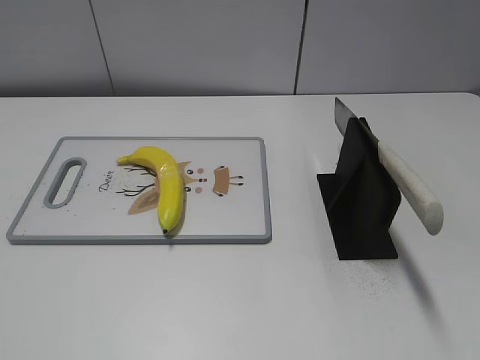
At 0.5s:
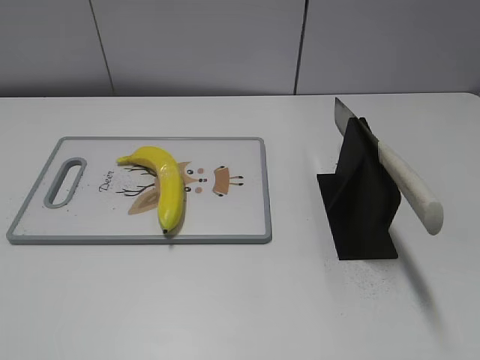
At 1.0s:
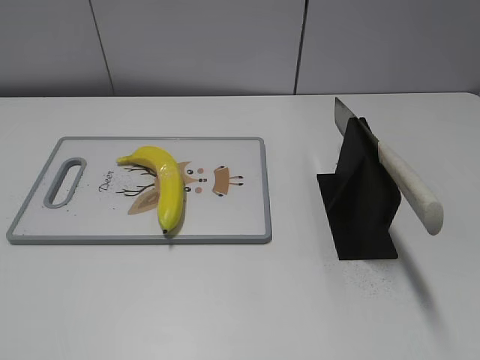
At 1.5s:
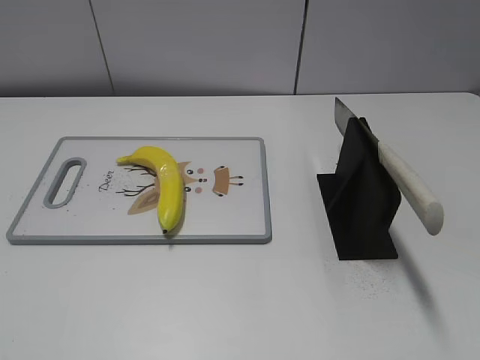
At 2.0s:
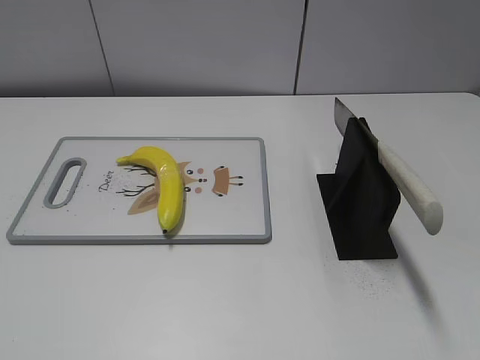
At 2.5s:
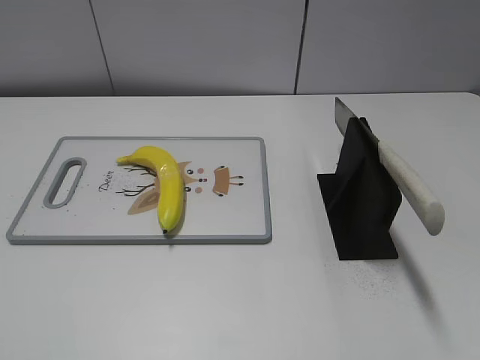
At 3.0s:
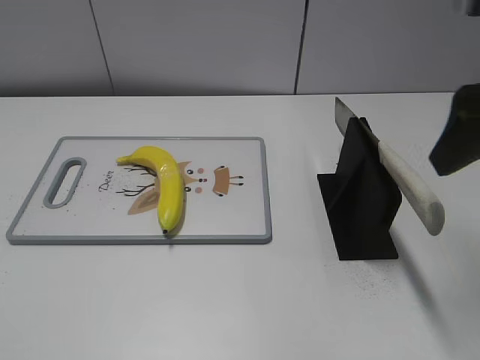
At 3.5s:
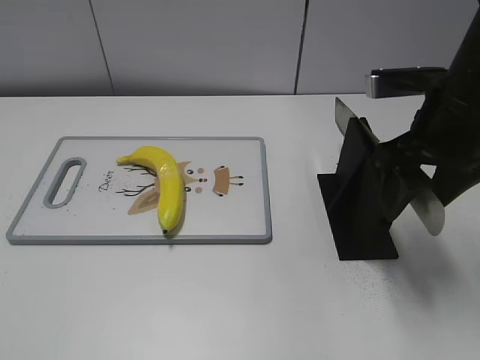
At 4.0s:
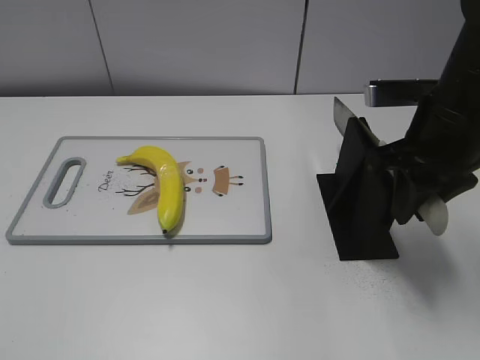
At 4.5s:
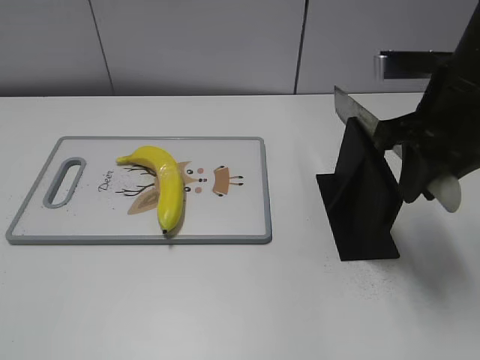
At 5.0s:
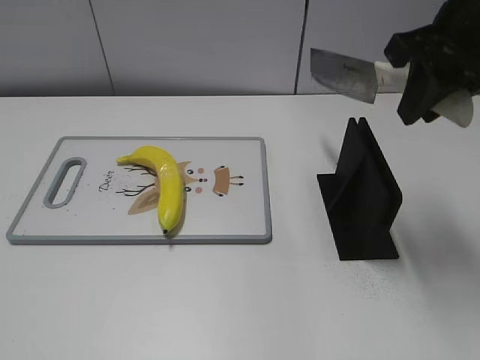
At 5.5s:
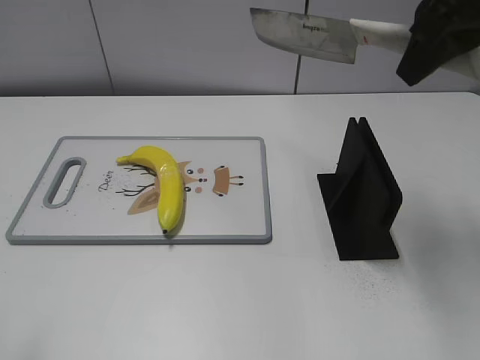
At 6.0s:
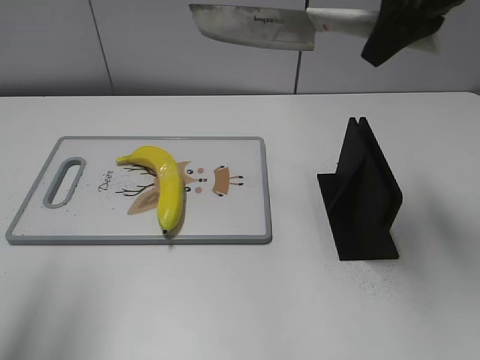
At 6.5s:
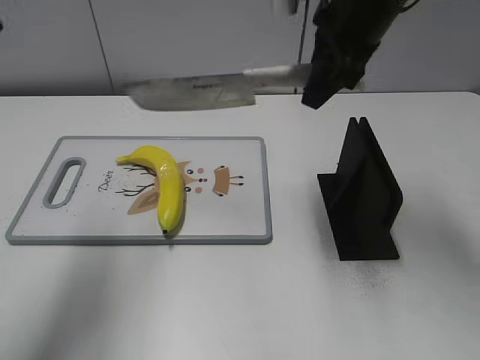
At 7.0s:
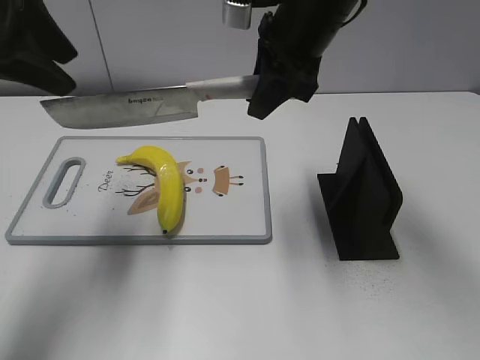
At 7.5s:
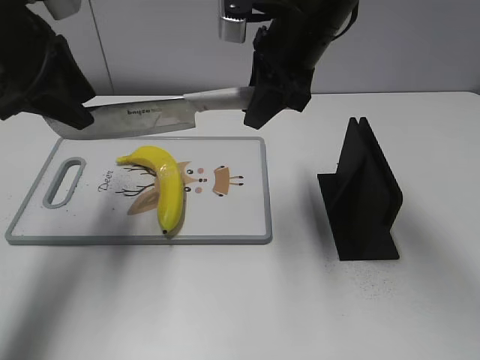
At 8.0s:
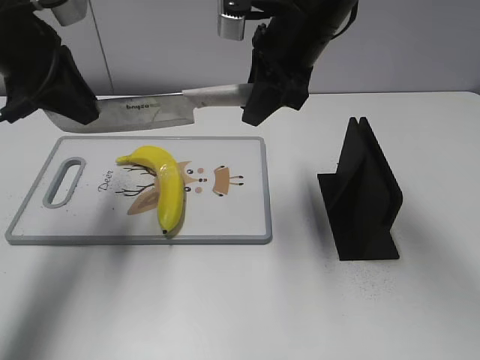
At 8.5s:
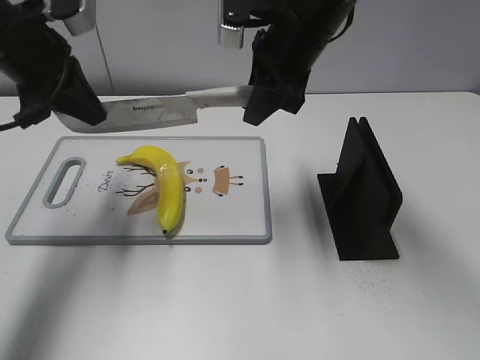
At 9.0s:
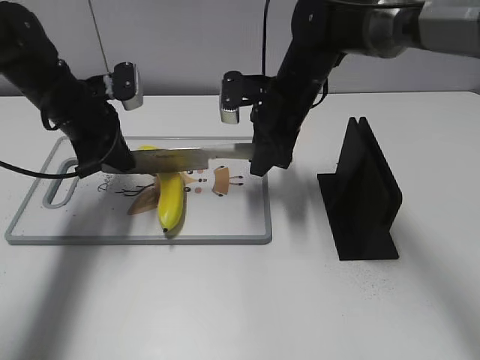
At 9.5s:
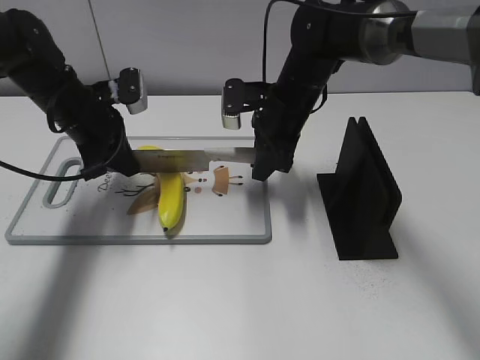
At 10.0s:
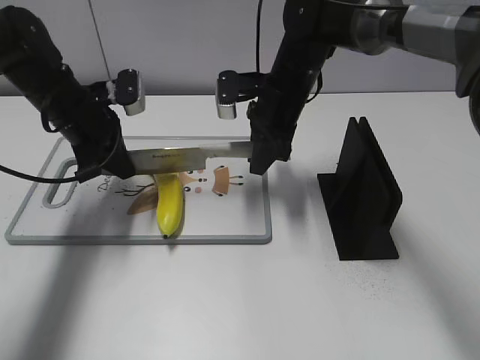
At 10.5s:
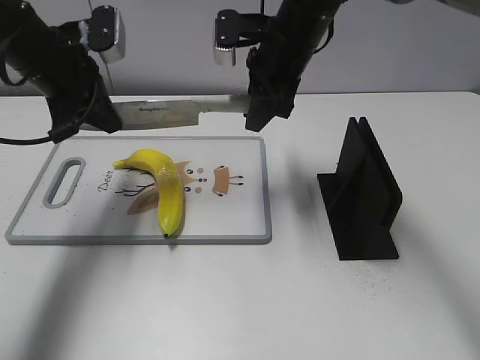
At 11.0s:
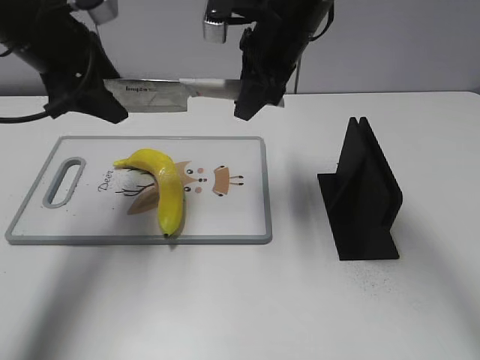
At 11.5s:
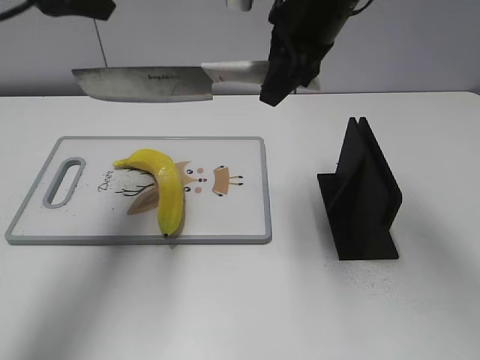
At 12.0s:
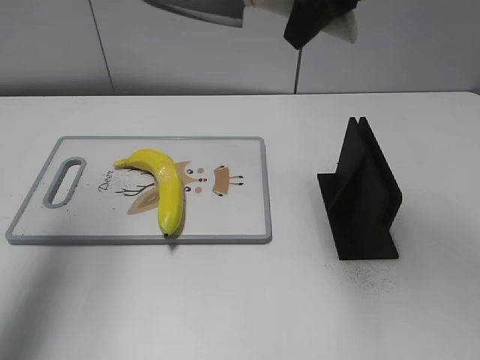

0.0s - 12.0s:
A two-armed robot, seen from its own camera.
Task of the whole recording: cut plastic banana.
Step, 0.0s - 4.5s: Grab the knife handle with your right hand.
Step, 5.0s - 10.0s: Hold the blade with your left hand.
2.0s - 4.0s: The right gripper goes some 30 cm forward, and closes its fingers.
4.0s - 6.0s: The right gripper heads upward, covering about 15 cm, while the left gripper is displaced forward and upward by roughly 20 cm.
6.0s - 8.0s: The right gripper goes about 15 cm to the left and downward; the left gripper moves forward and downward, some 20 cm, and closes.
8.0s - 10.0s: The grippers both shift downward by approximately 10 cm. The left gripper closes its fingers.
10.0s - 12.0s: The right gripper goes some 20 cm upward. The left gripper is displaced upward and backward by some 25 cm, and opens its fingers.

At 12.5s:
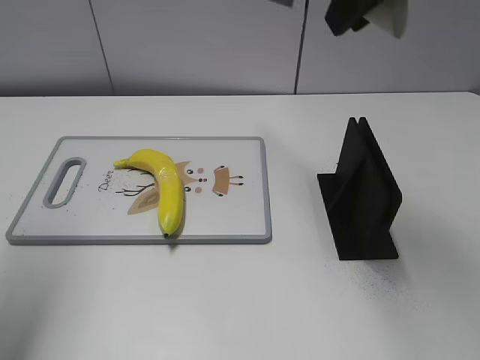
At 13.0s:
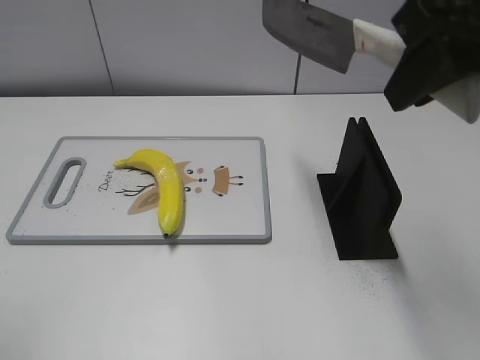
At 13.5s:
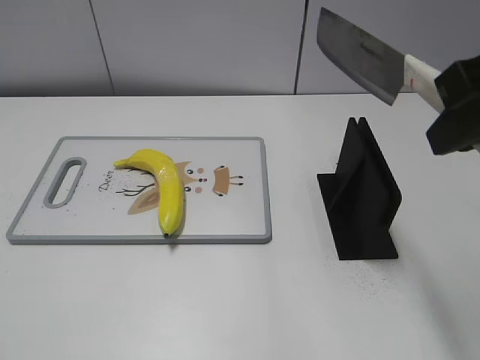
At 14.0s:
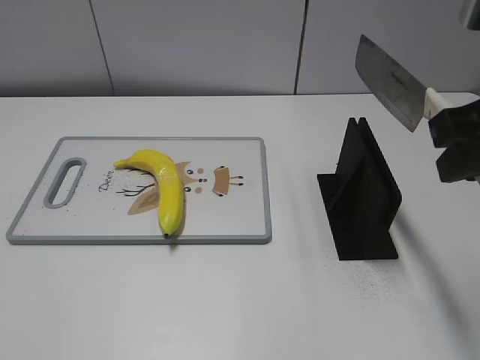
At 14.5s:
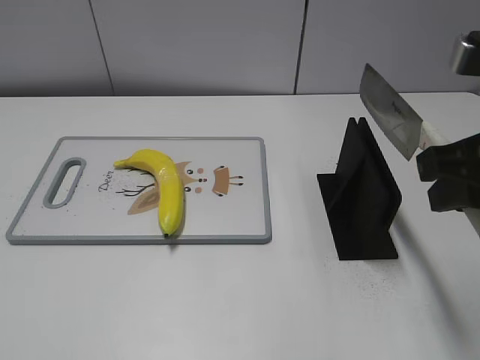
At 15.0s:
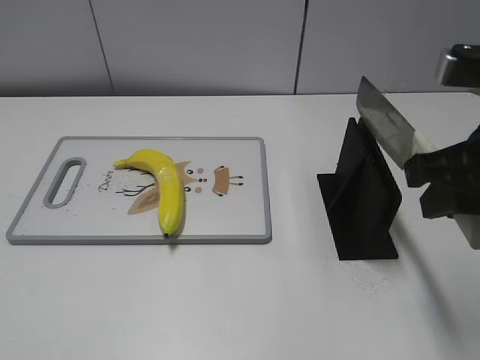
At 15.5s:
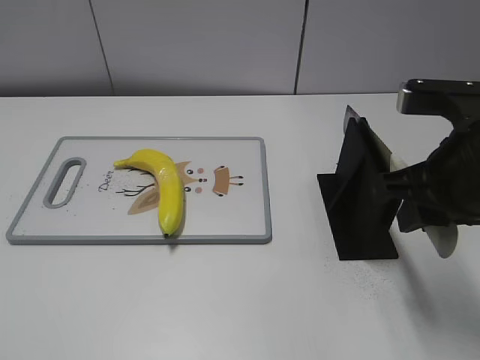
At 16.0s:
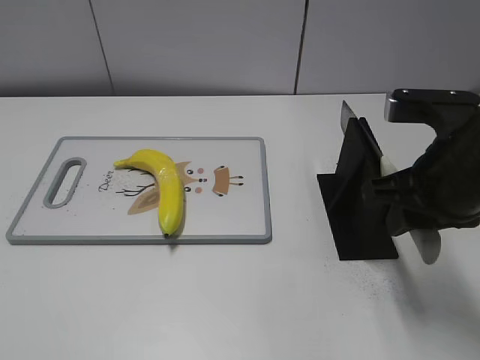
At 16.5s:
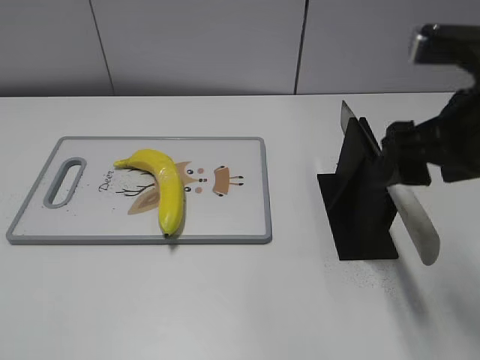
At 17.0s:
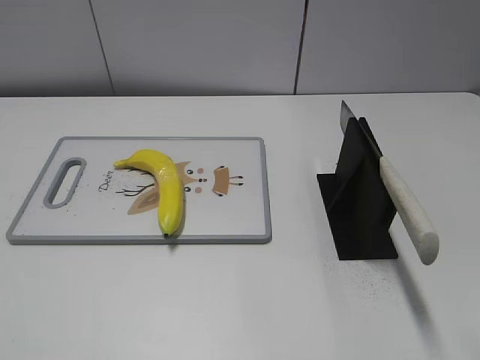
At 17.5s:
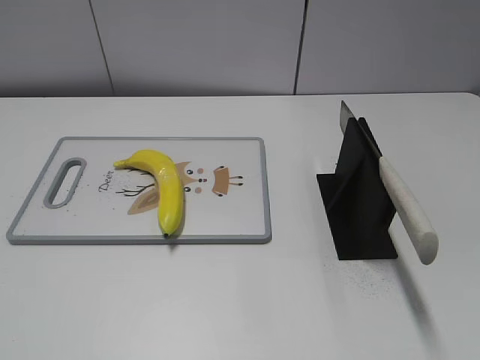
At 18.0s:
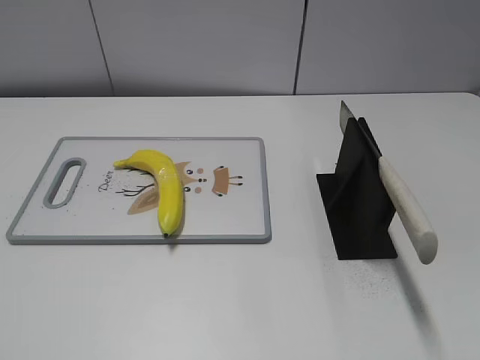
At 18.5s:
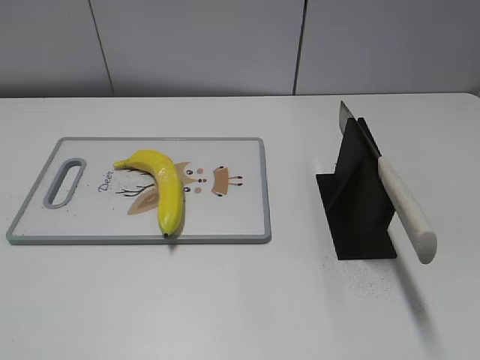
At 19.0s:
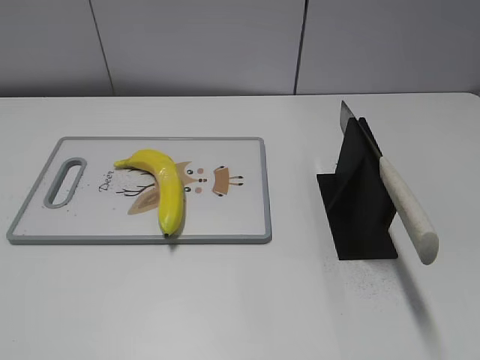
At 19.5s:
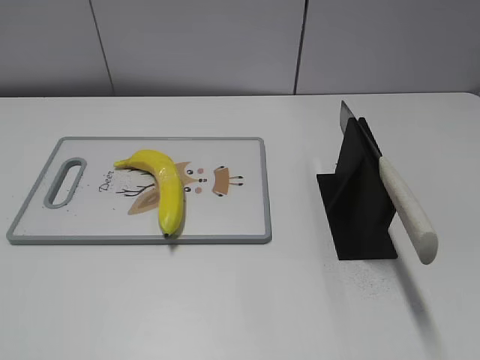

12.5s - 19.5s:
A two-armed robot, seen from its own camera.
Task of the whole recording: cut plastic banana.
Step, 12.5s - 13.0s: Secure the blade with your left hand.
Step, 13.5s - 19.5s: Place the knife on the storage rack with your right hand.
12.5s - 14.5s: The left gripper is displaced backward and downward by about 25 cm. Meanwhile the right gripper heads downward, backward and to the right, covering about 20 cm.
14.5s - 16.0s: The right gripper goes some 5 cm downward.
16.0s - 17.5s: The right gripper moves backward and to the right, roughly 20 cm, and opens its fingers.

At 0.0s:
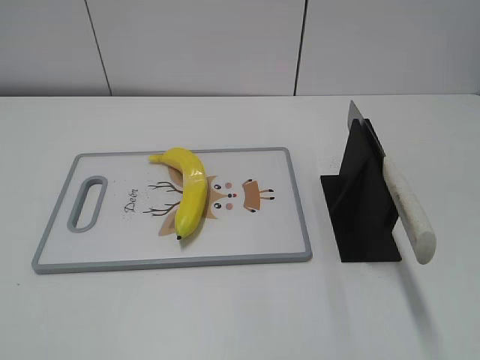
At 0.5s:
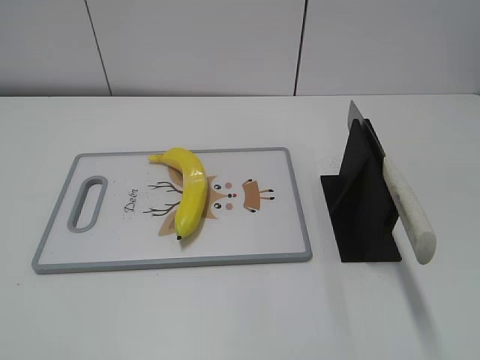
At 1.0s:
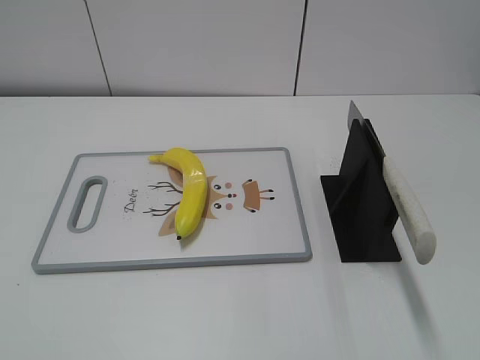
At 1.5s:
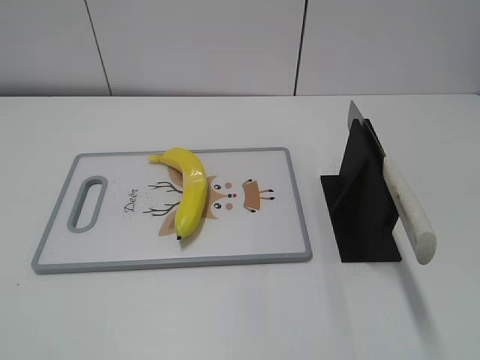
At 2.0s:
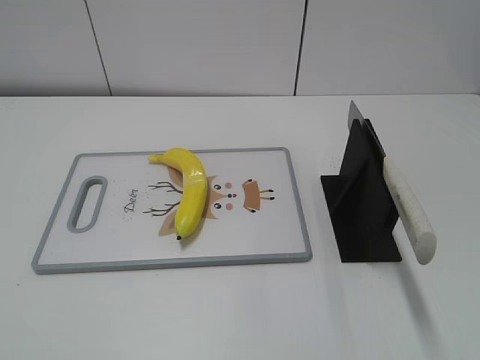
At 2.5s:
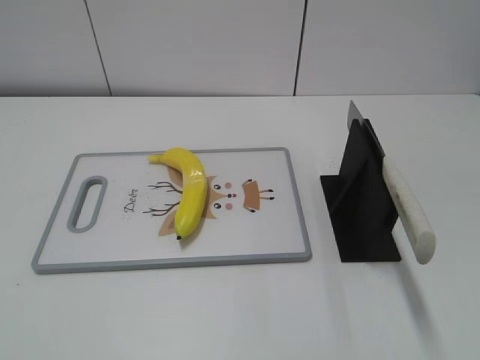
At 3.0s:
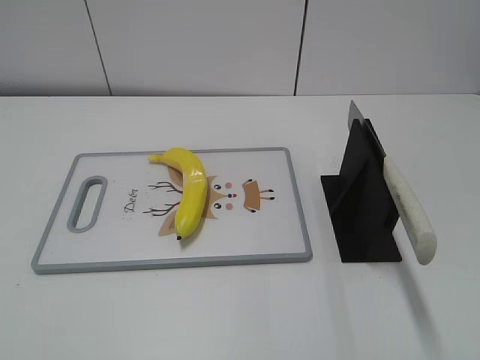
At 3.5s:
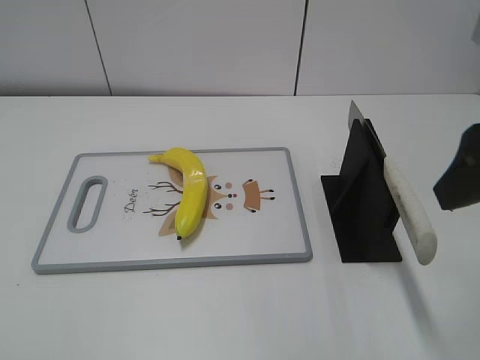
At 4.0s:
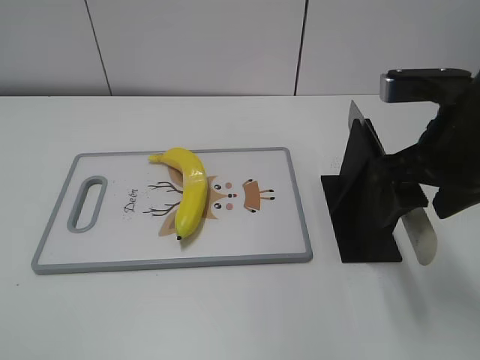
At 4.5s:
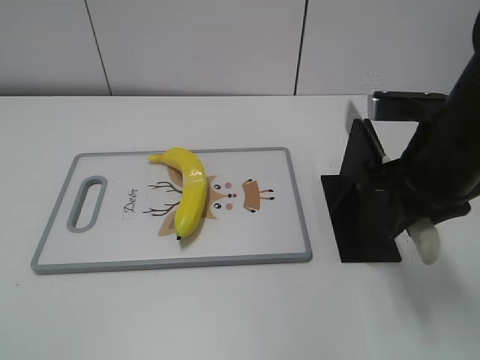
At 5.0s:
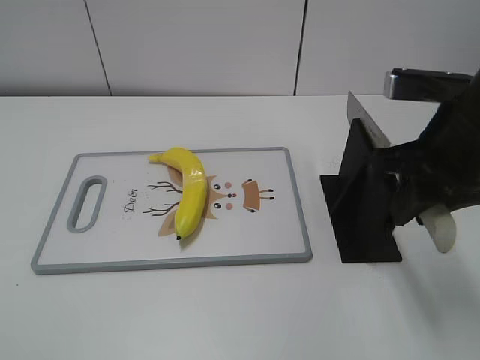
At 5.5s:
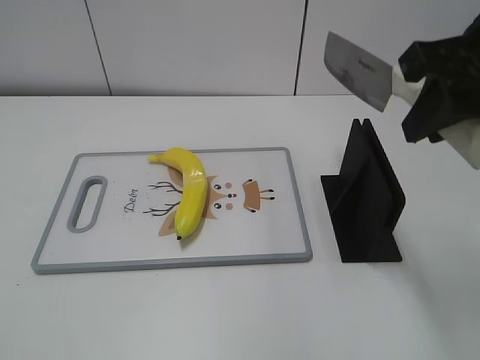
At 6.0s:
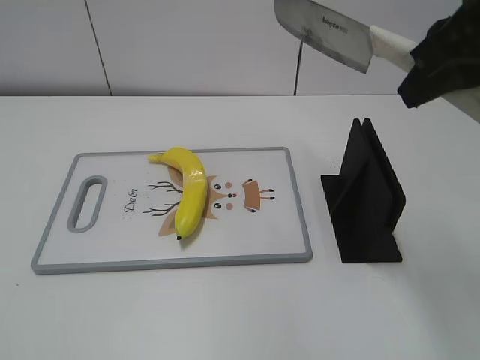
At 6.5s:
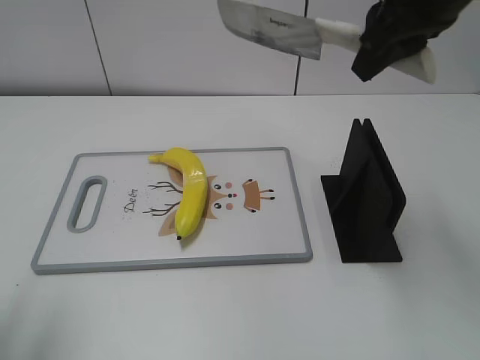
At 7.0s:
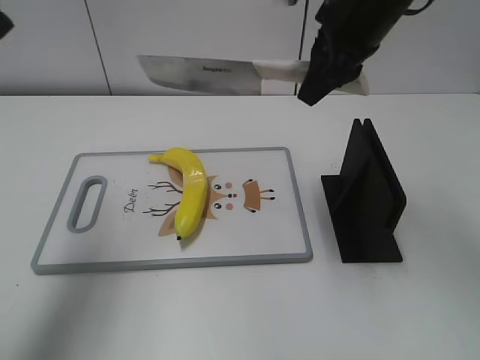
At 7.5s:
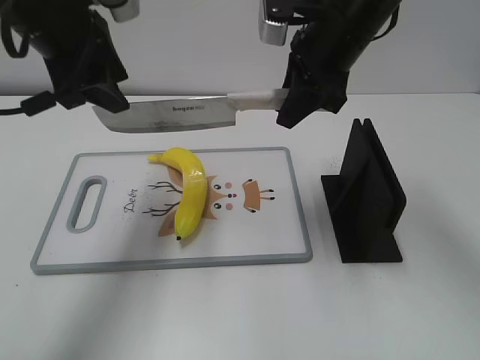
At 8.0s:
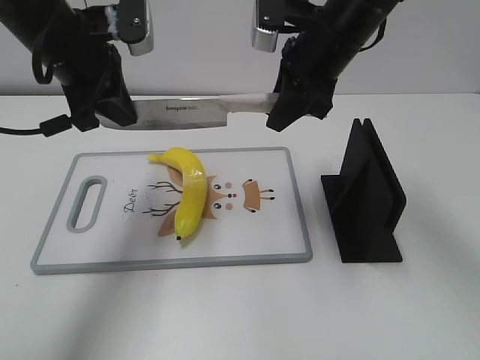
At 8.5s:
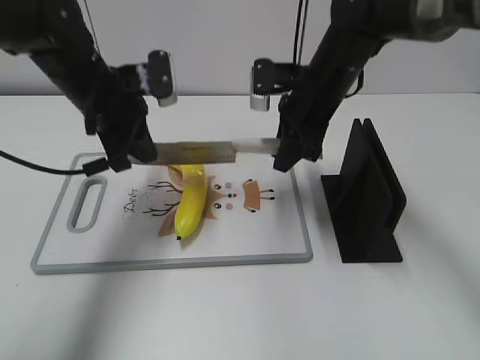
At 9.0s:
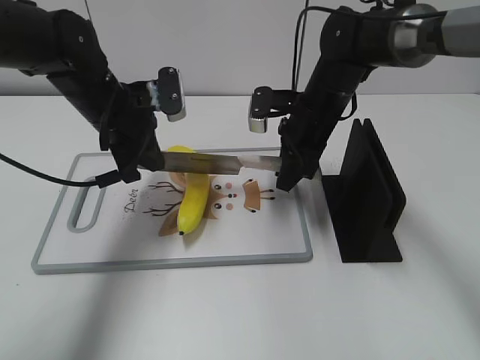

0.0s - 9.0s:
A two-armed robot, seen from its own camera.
Task of the whole recording: cut plastic banana.
Step, 0.0s - 5.5s: Grab the knife handle with your right hand.
2.0s - 4.5s: The right gripper is displaced forward and to the left by approximately 30 cm, and closes up.
4.5s - 7.0s: The left gripper shifts roughly 30 cm forward; the right gripper is displaced forward, upward and to the left by roughly 15 cm.
7.0s - 9.0s: The right gripper heads downward, covering some 15 cm. Meanwhile the left gripper travels downward, forward and to the right by roughly 25 cm, and closes.
